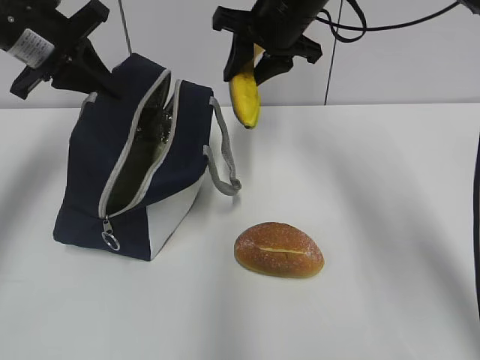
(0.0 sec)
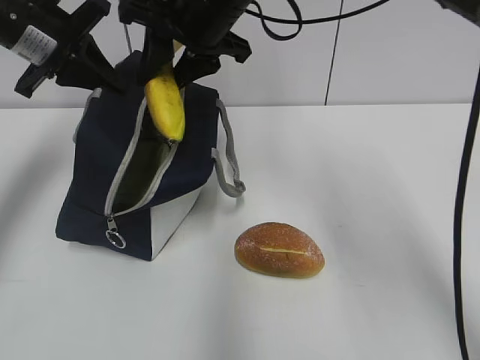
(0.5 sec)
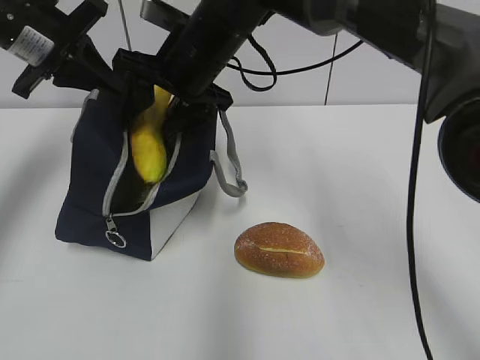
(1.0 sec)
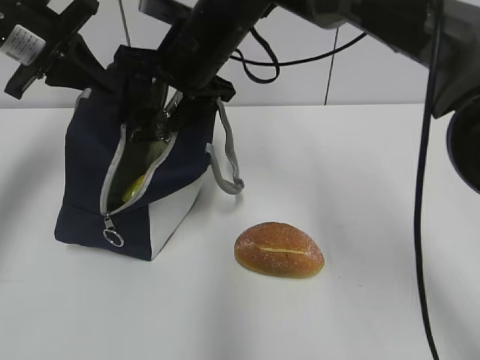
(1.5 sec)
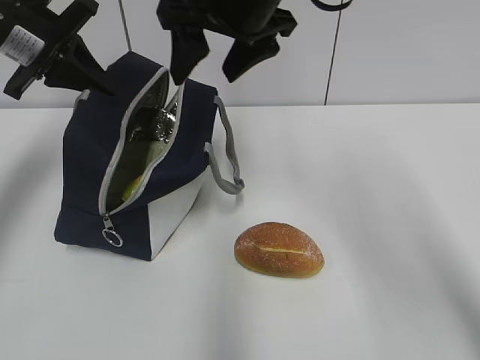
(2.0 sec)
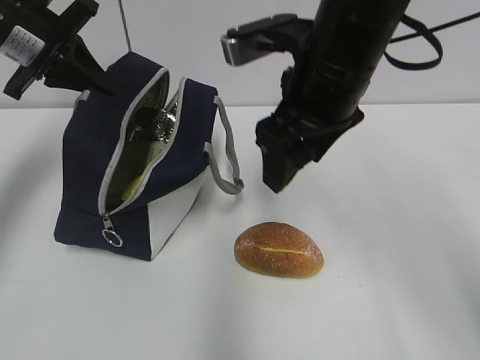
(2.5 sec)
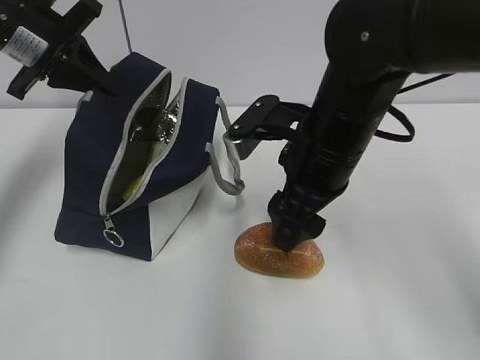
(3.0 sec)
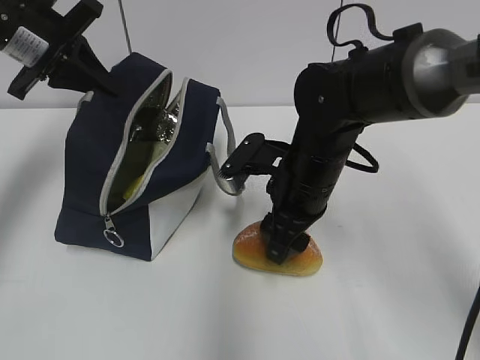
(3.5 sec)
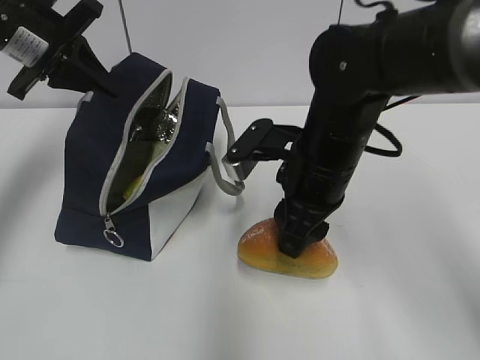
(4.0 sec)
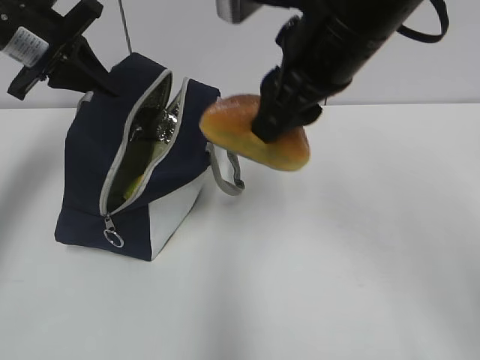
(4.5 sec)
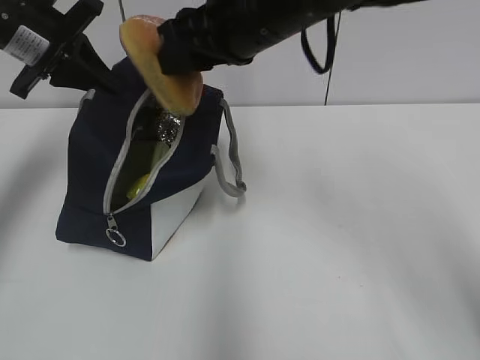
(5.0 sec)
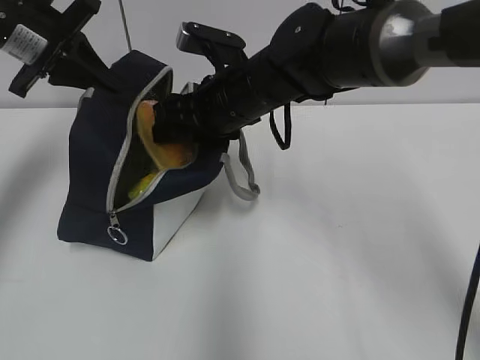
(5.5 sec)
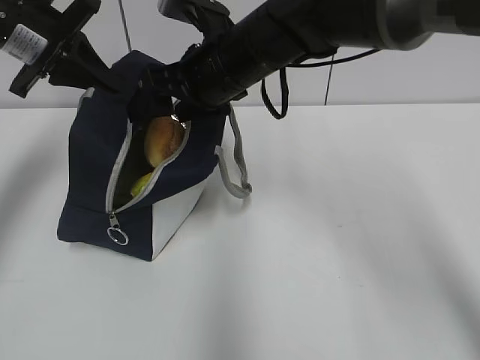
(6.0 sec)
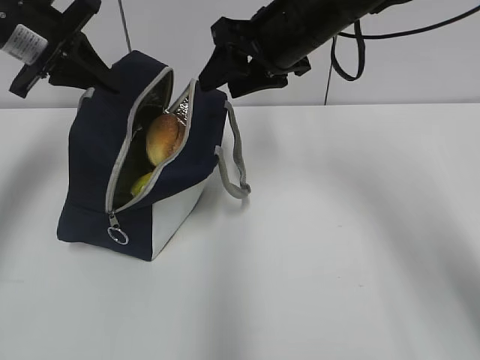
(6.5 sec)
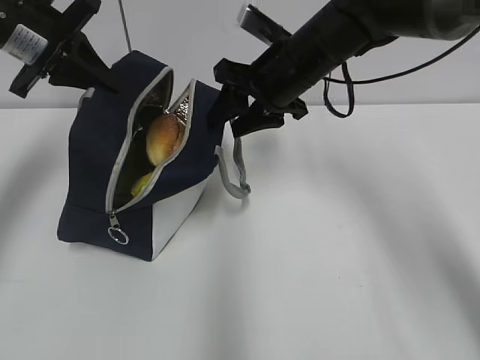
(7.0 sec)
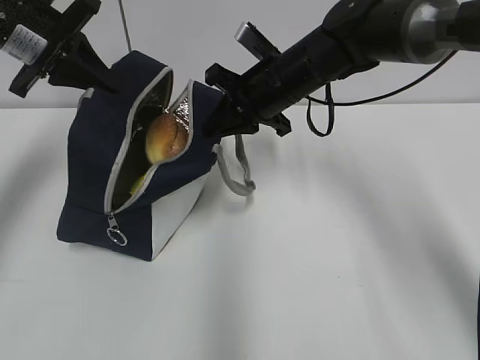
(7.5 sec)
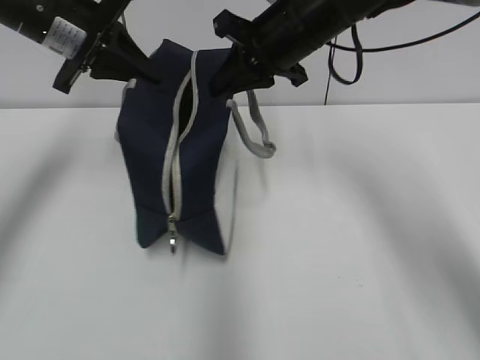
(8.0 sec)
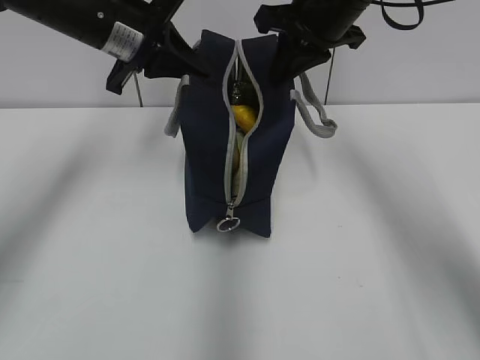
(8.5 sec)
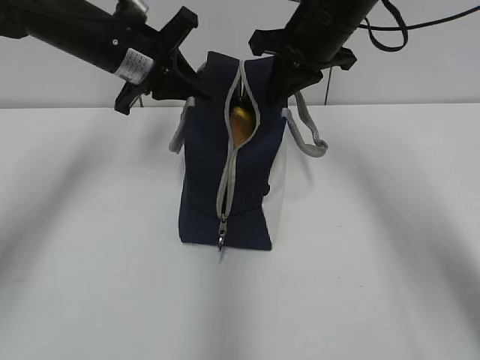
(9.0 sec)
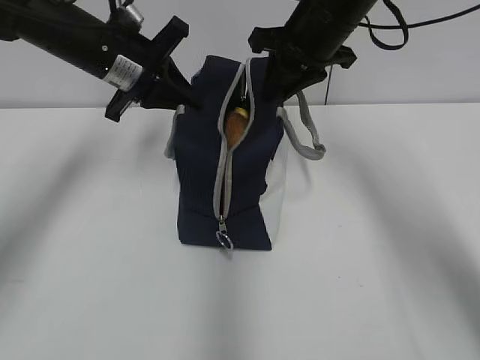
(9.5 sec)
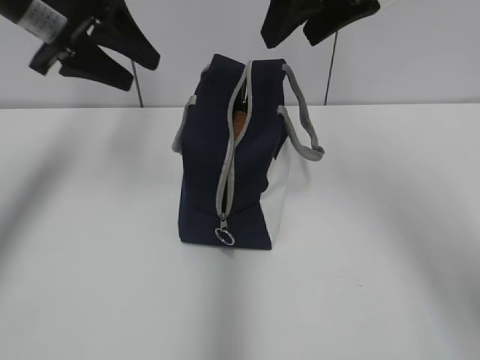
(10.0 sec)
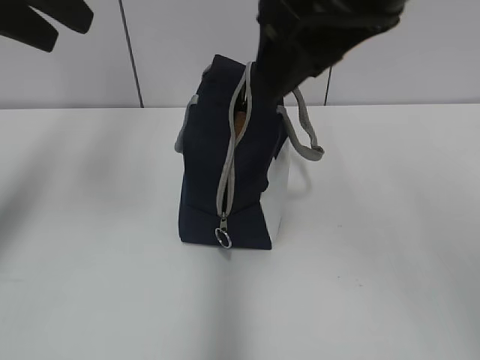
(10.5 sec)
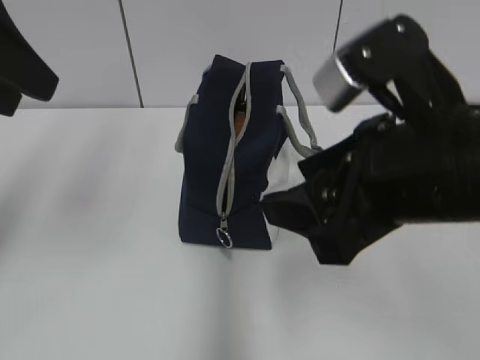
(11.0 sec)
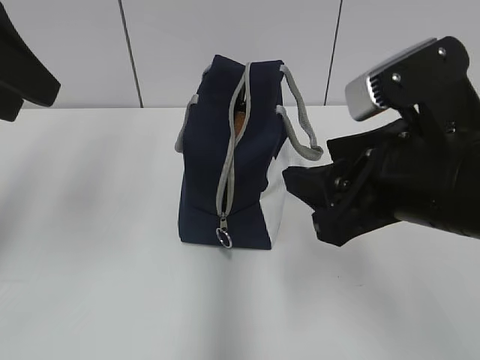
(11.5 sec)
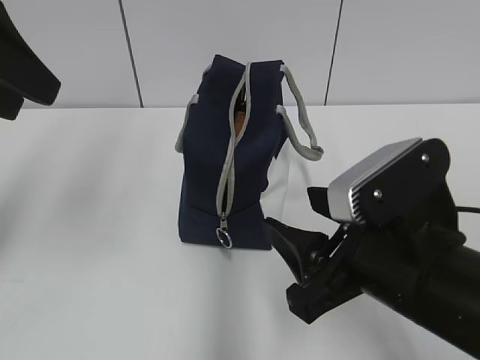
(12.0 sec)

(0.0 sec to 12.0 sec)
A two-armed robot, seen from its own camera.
Step, 1.5 sec - 3.5 sec: Grab the bread with your right hand.
Step, 6.0 sec - 7.5 sec: Grab the lunch bag with your right hand.
Step, 8.0 sec - 9.5 sec: Move the lunch bag to the right.
0.0 sec - 2.0 sec: The right gripper heads backward, to the left and upward, covering approximately 10 cm, and opens its fingers.
2.0 sec - 4.0 sec: The right gripper shifts about 15 cm downward and backward, and closes its fingers.
4.0 sec - 6.0 sec: The right gripper shifts roughly 15 cm forward, to the left and upward, and opens up.
6.0 sec - 8.0 sec: The right gripper moves to the right, approximately 10 cm, moves about 5 cm downward and comes back, and closes up.
8.0 sec - 10.0 sec: The right gripper travels upward and backward by about 10 cm, and opens up; the left gripper opens up.
10.0 sec - 12.0 sec: The right gripper is displaced backward and downward by about 25 cm; the left gripper travels backward by roughly 15 cm.

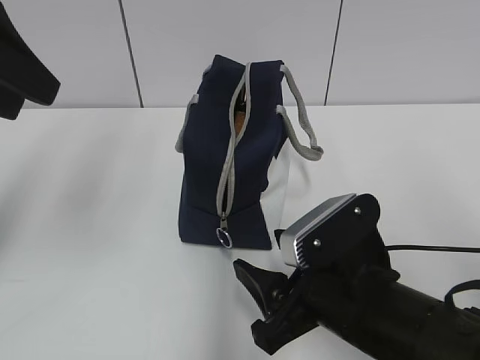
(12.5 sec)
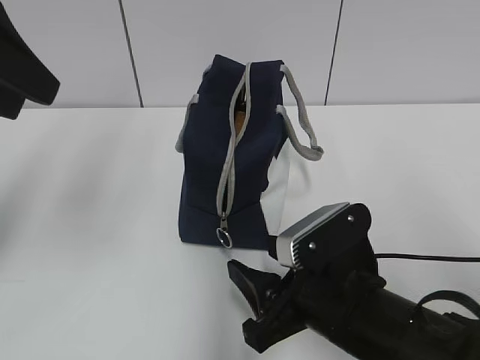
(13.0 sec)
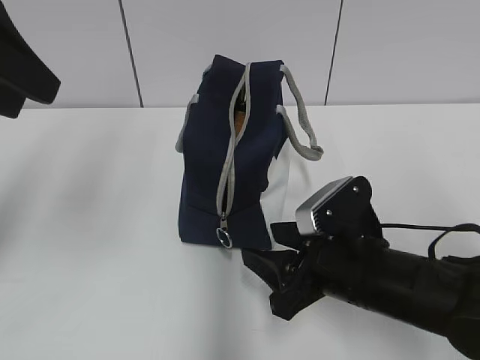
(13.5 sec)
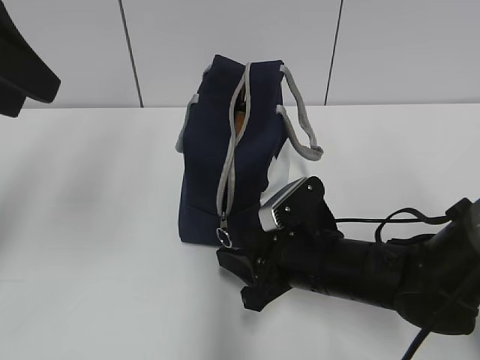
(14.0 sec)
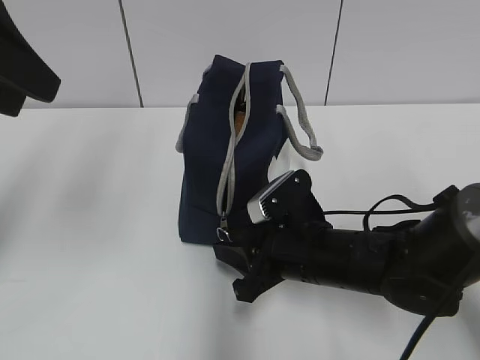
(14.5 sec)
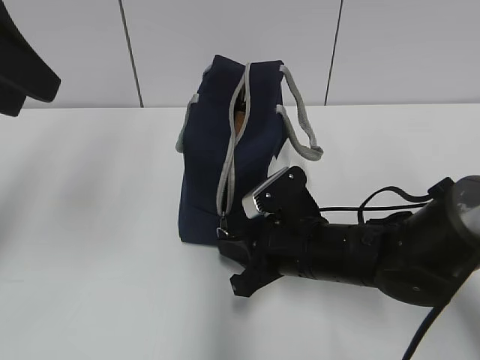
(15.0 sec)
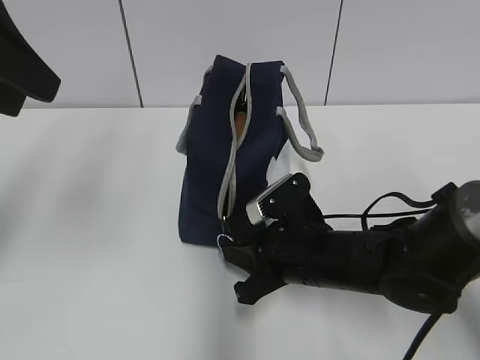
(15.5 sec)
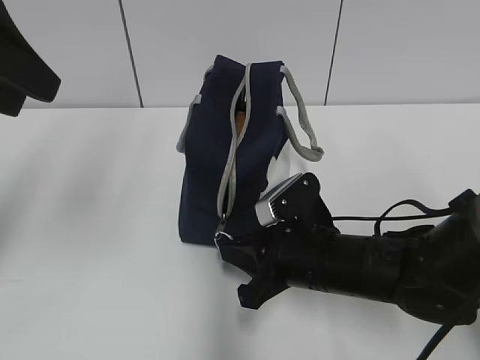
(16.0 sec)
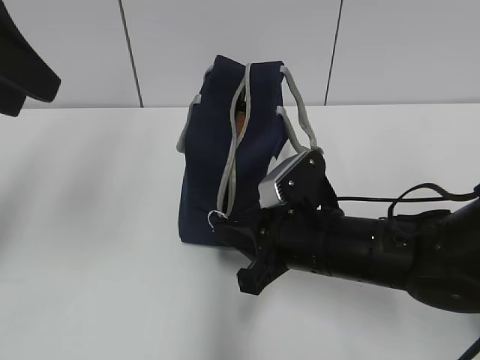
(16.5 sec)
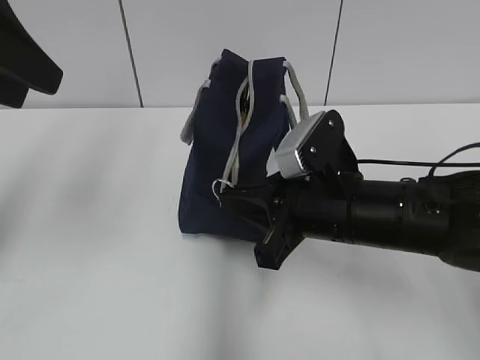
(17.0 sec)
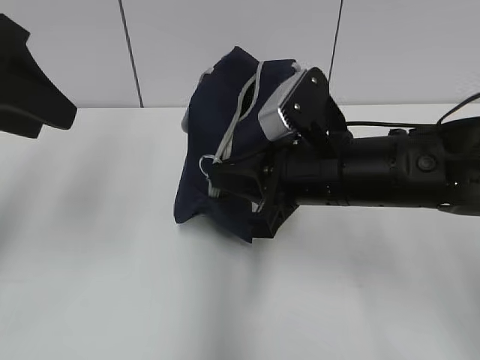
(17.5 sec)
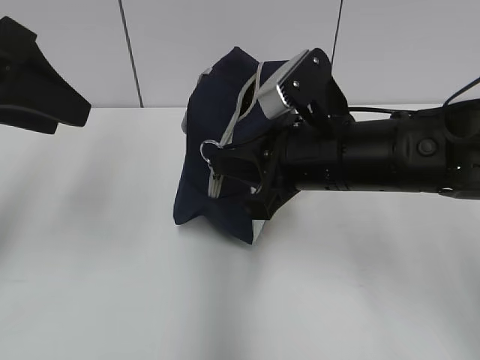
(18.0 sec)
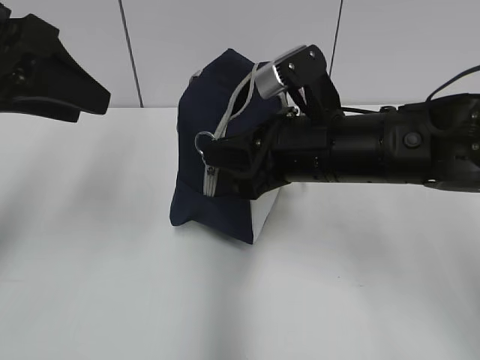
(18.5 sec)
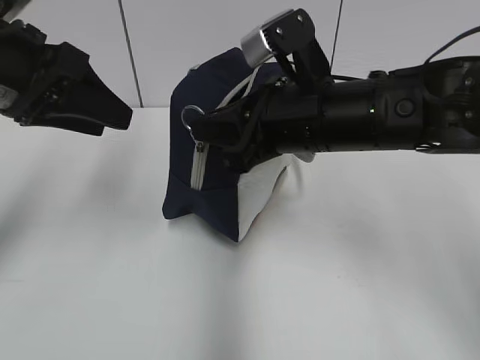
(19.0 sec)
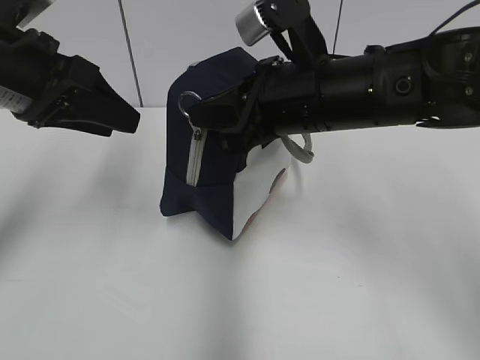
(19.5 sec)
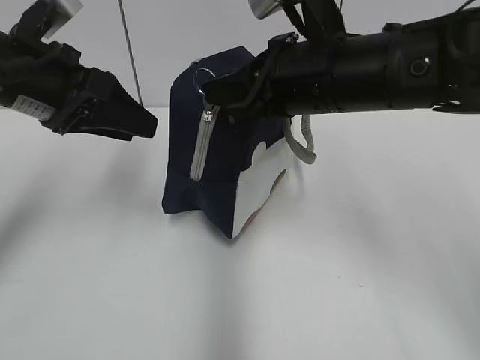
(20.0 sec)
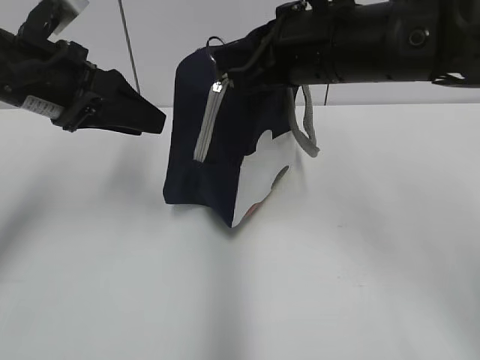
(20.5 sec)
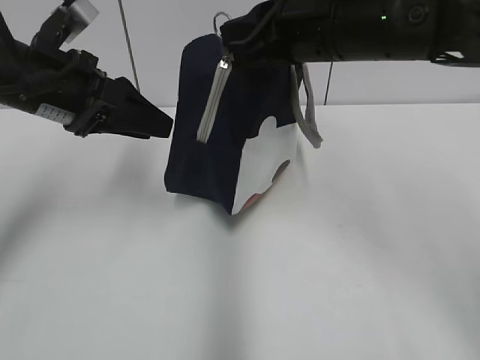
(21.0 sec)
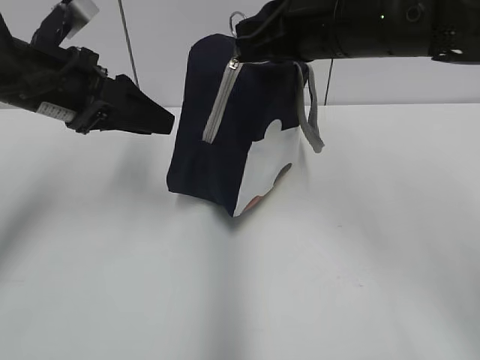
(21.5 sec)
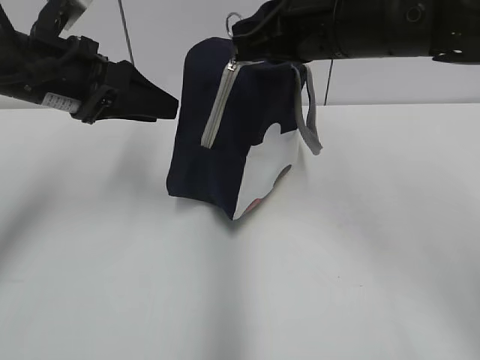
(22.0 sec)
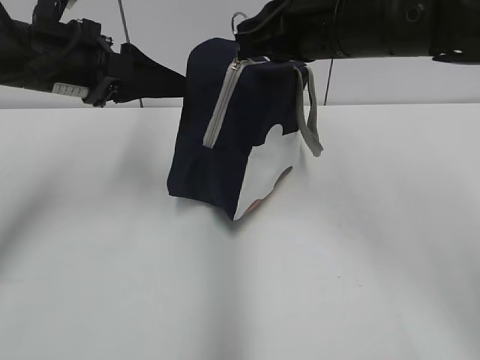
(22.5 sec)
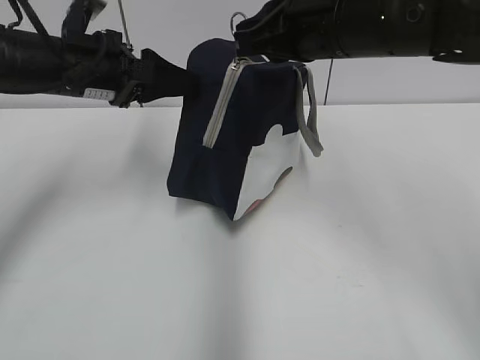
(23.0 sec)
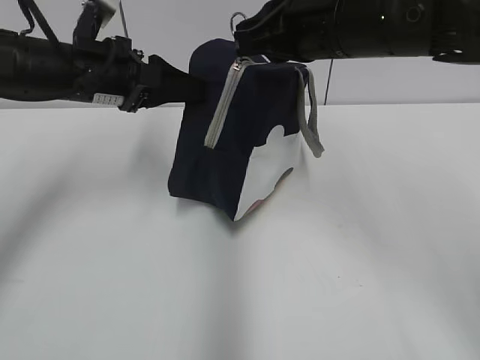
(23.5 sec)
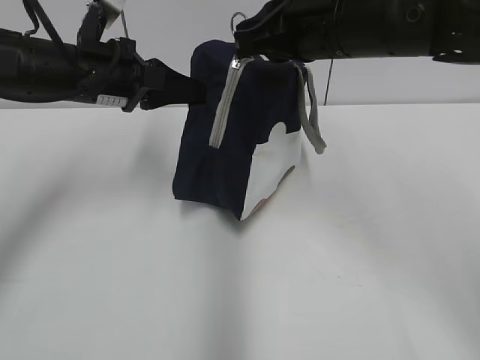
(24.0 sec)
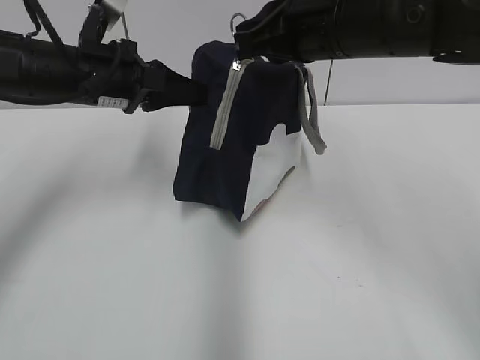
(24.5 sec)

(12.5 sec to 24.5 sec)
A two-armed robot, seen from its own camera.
Step, 12.5 sec - 23.5 sec: Grab the lunch bag with your left hand.
12.5 sec - 14.5 sec: The right gripper goes some 10 cm forward and downward, and closes its fingers.
14.5 sec - 16.5 sec: The right gripper closes.
16.5 sec - 18.5 sec: The right gripper is displaced upward by roughly 10 cm.
18.5 sec - 20.5 sec: The right gripper is displaced upward by about 10 cm; the left gripper travels downward and forward by some 10 cm.
20.5 sec - 22.5 sec: There are only small adjustments of the grippers.
22.5 sec - 24.5 sec: The left gripper moves some 5 cm, and closes up.

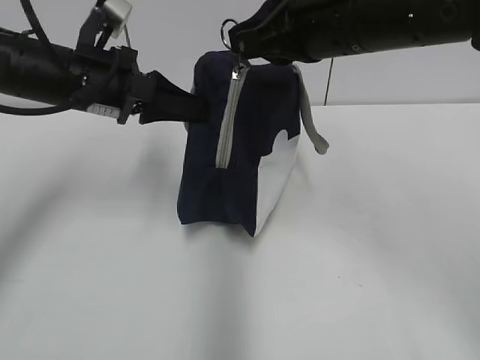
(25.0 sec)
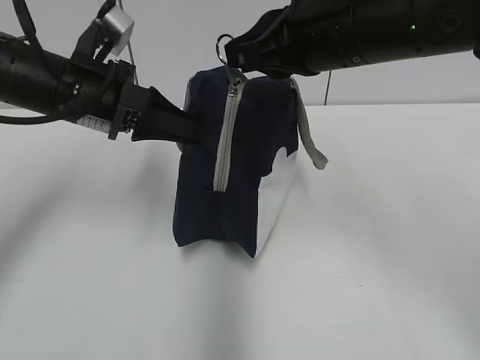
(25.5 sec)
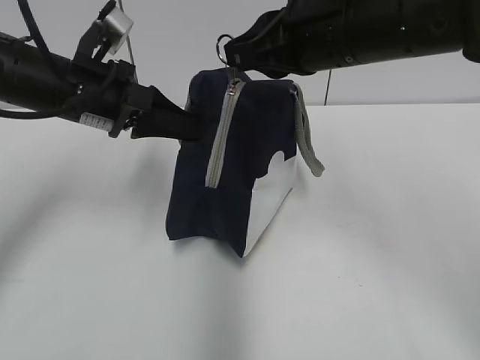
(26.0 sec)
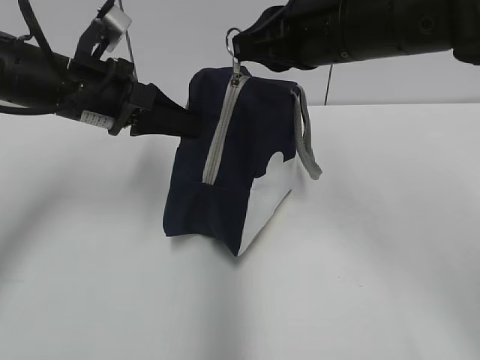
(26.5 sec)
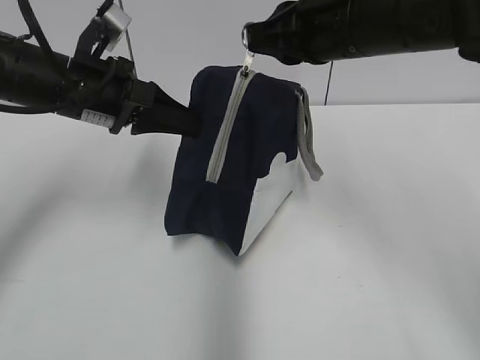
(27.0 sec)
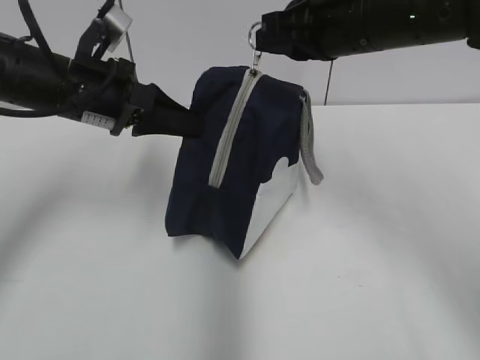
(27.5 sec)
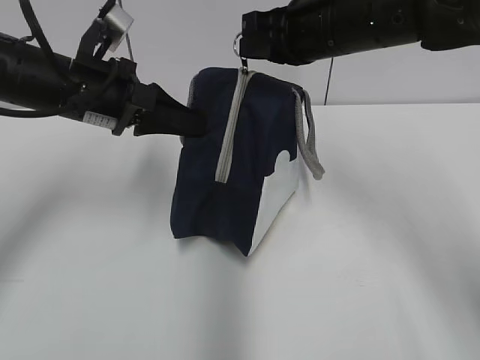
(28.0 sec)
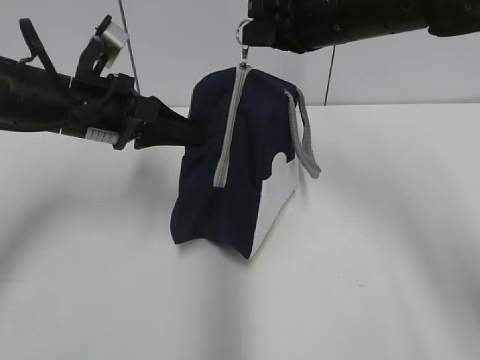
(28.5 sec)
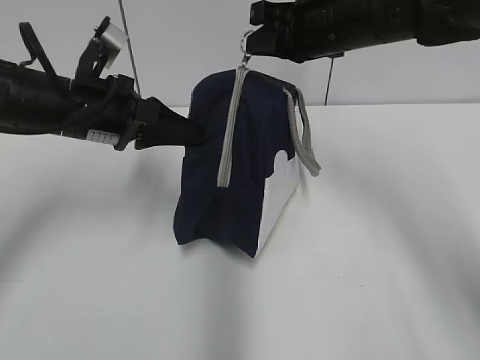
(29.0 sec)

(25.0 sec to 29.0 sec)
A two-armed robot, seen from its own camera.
25.0 sec - 27.0 sec: The grippers make only small movements.
27.0 sec - 29.0 sec: The right gripper travels forward by some 10 cm.
